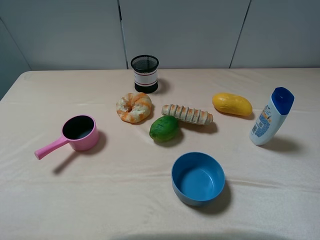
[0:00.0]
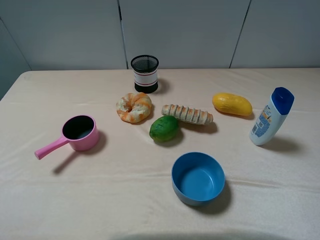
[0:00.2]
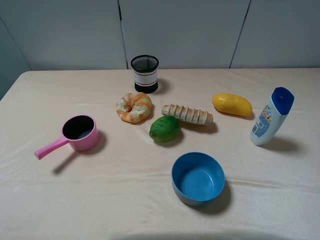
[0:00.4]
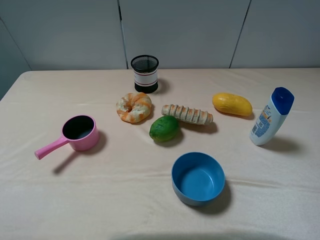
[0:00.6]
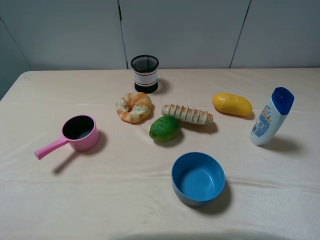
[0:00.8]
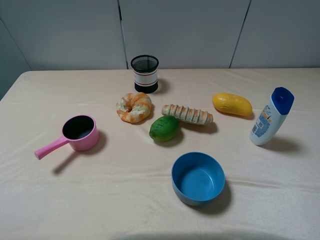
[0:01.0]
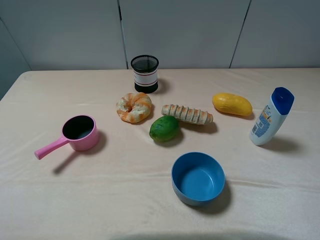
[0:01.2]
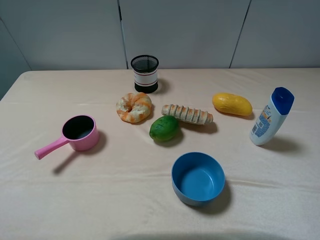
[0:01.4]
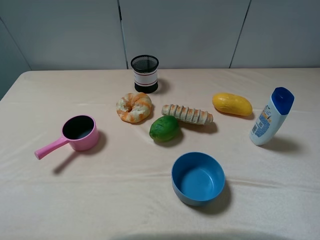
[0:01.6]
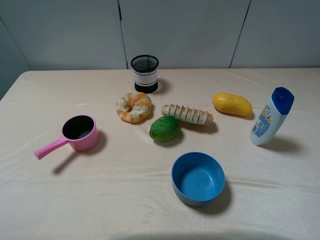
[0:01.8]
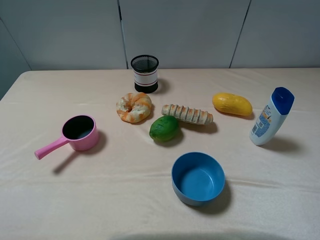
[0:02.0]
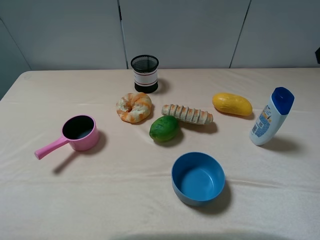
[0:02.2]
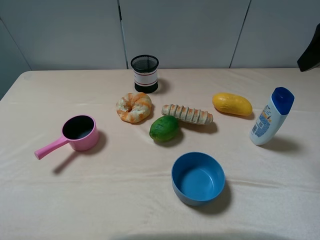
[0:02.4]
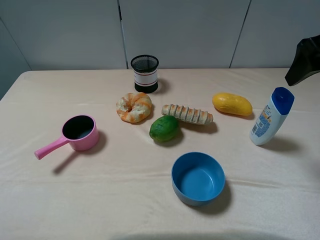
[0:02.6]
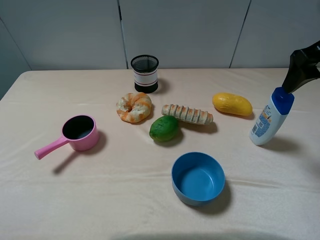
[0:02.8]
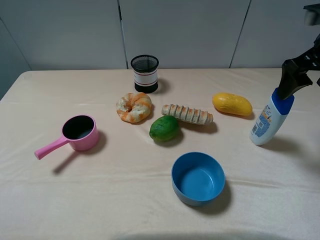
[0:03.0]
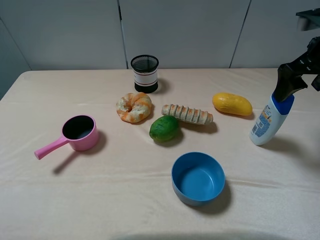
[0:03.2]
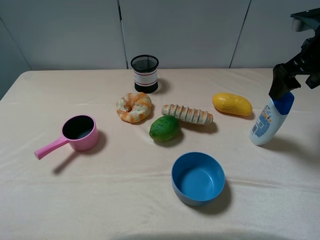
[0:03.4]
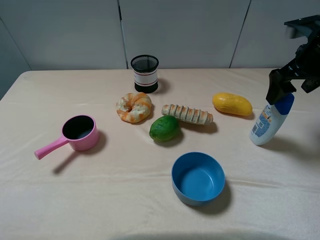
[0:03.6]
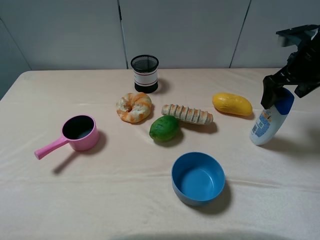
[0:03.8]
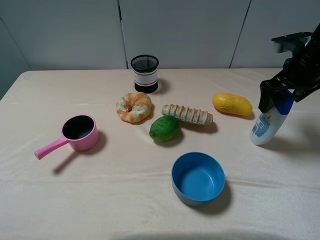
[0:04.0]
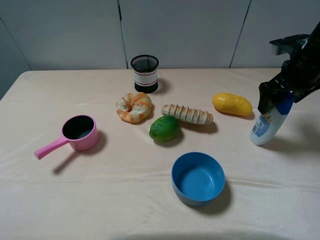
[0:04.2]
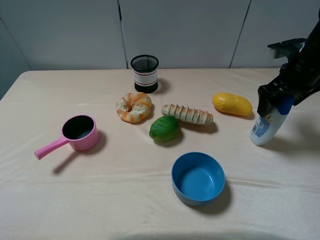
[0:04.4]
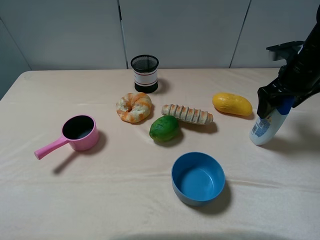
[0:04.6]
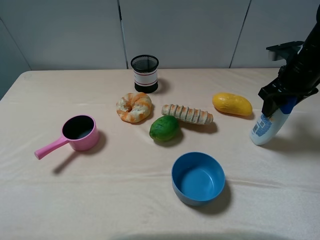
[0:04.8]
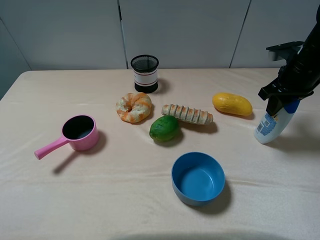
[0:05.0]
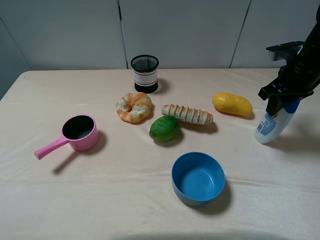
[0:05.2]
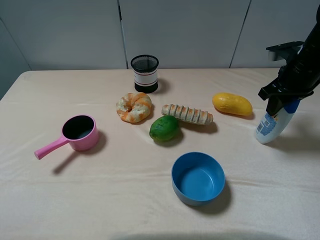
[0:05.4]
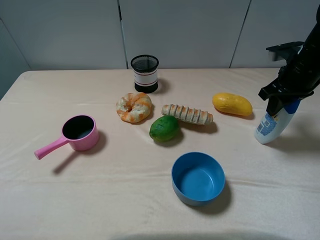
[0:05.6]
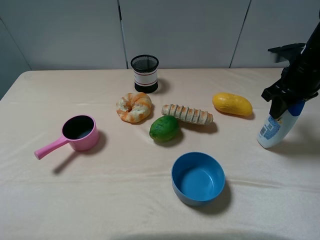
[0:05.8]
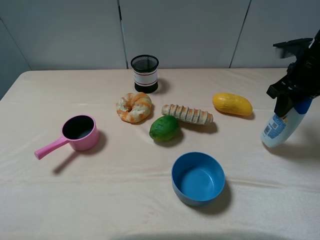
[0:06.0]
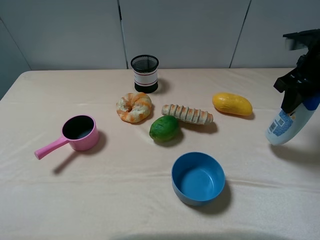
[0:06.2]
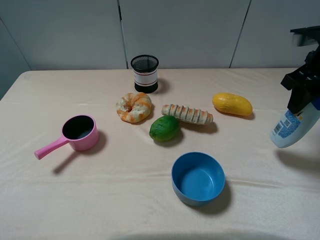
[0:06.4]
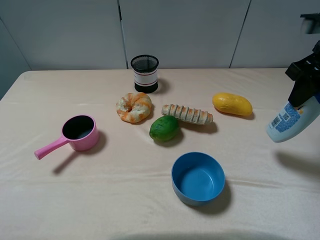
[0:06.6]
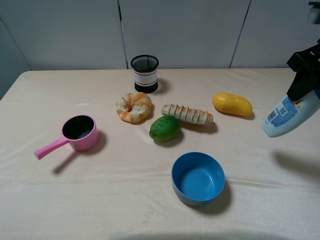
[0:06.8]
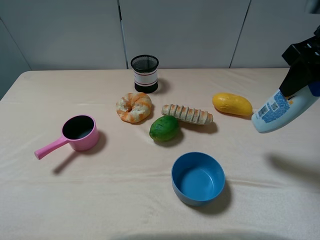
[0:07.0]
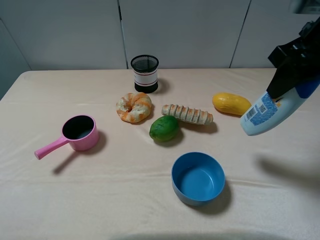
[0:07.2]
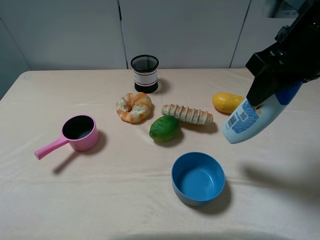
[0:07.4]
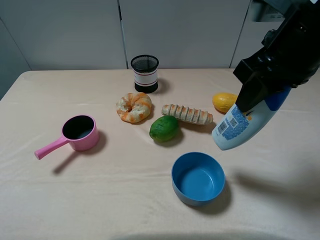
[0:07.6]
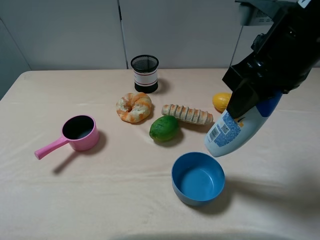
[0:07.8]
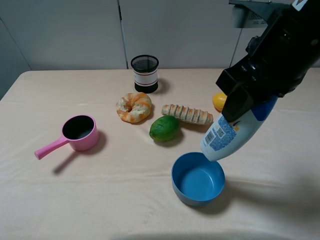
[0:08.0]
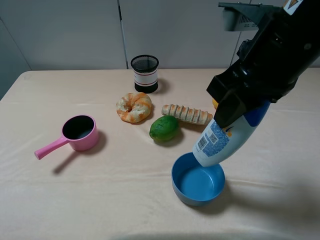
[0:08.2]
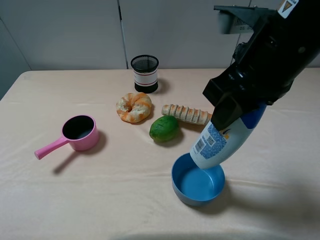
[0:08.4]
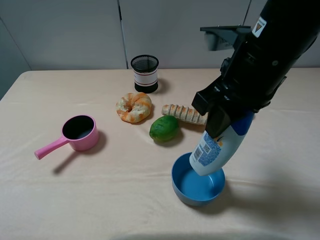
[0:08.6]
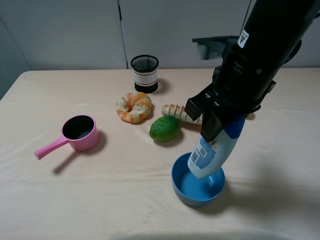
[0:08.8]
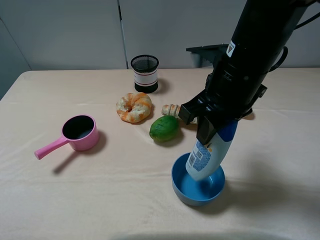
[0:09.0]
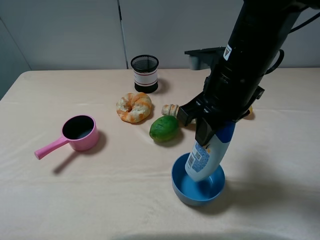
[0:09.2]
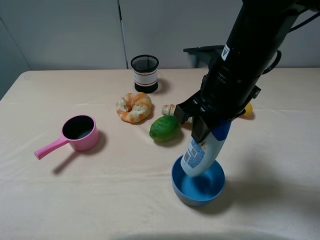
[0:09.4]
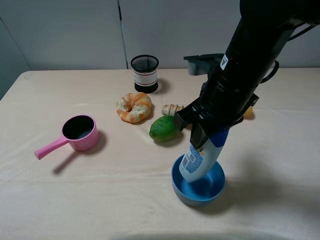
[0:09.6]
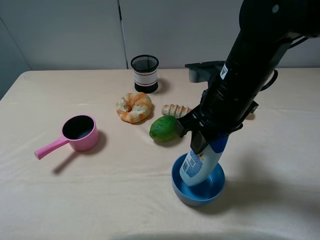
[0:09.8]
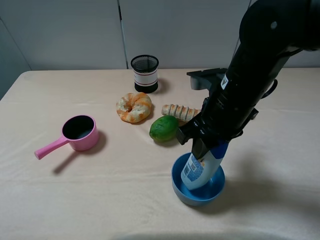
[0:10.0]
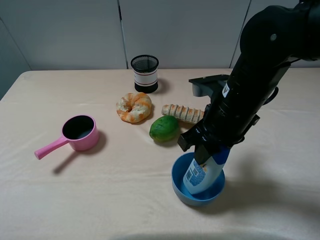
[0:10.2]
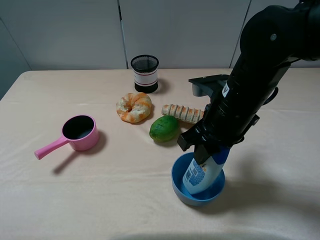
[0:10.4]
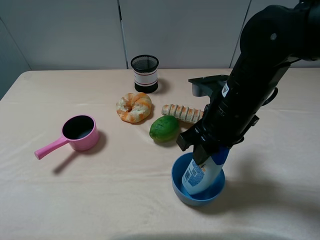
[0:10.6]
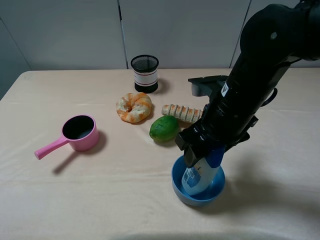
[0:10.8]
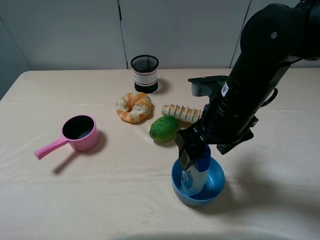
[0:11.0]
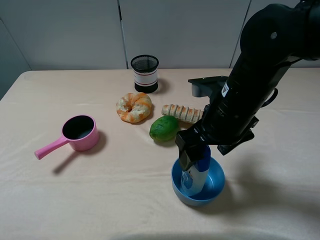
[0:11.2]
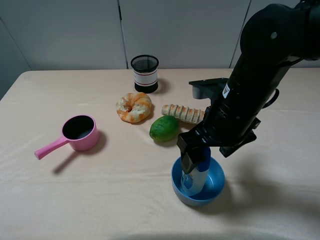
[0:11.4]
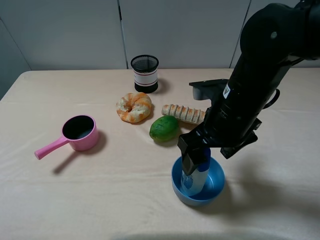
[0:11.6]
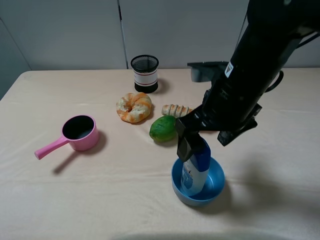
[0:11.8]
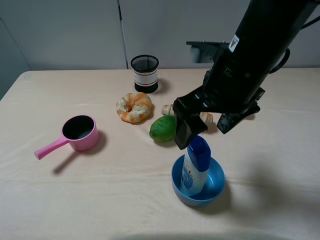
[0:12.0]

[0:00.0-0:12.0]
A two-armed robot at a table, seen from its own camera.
Task of the whole recording: pick up an item with a gripper and place it in a random container on the table.
Step, 0:00.0 to 0:04.8: Grasp the shampoo with the right gripper.
0:01.6 to 0:03.0: The right gripper moves forward and downward, some 20 cm.
0:03.0 to 0:04.4: The right gripper moves downward, about 10 cm.
0:04.4 to 0:06.0: The right gripper closes.
0:06.0 to 0:07.6: The right gripper goes about 20 cm to the left, backward and upward.
0:07.6 to 0:09.0: The right gripper shifts some 10 cm to the left and downward.
0:09.0 to 0:10.4: The right gripper travels downward by some 5 cm.
0:10.4 to 0:12.0: The right gripper moves upward, approximately 5 cm, and opens.

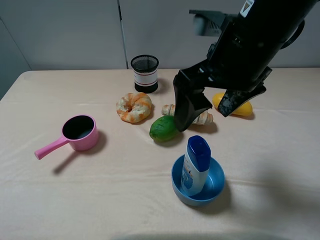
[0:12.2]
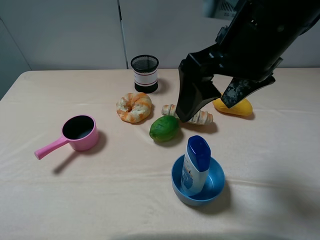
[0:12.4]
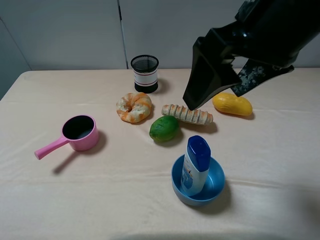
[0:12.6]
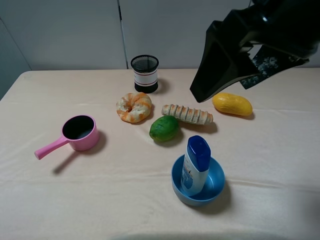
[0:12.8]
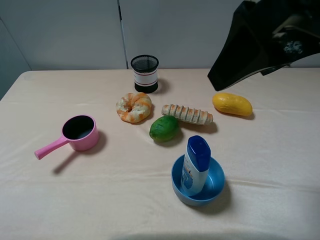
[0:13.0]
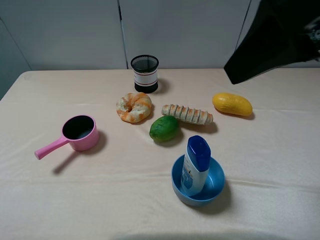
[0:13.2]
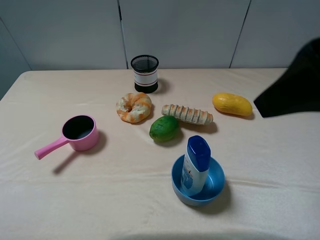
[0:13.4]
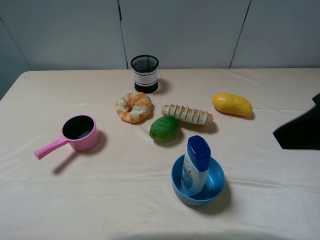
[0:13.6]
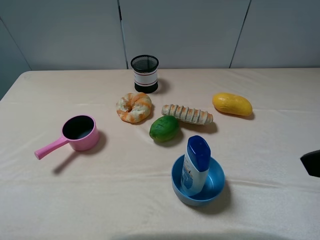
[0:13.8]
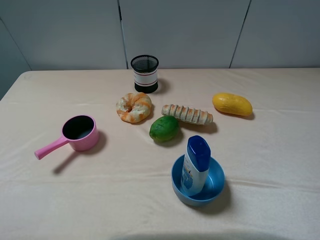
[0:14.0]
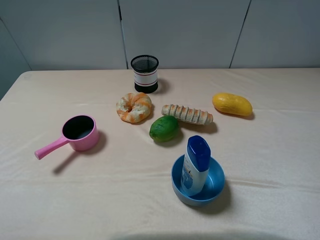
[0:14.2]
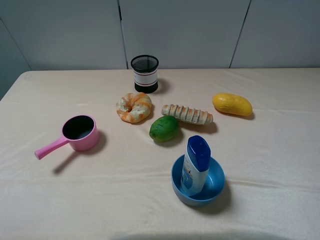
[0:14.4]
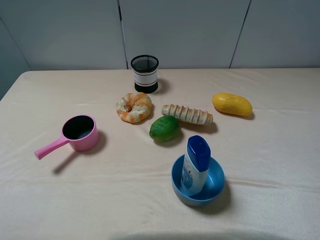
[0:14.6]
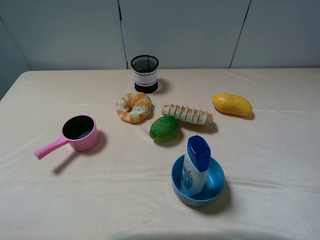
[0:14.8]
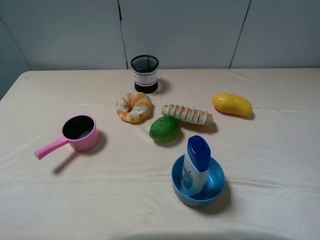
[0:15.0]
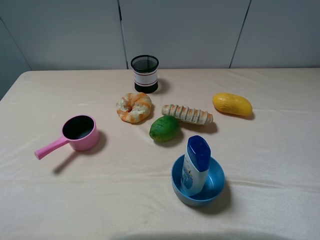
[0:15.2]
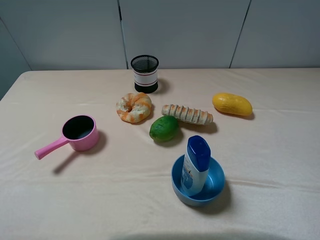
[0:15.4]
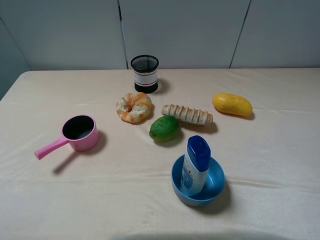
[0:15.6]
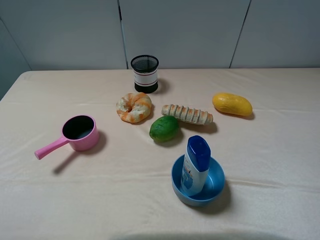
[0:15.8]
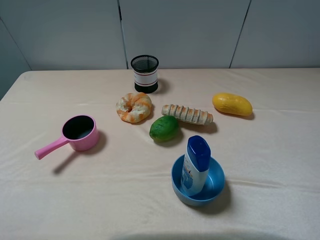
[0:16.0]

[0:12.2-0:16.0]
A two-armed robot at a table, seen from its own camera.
Task of the whole recording: pick up an item with a gripper and place it in a random container on the table.
0:12.2 to 0:13.4: The right gripper is displaced to the right, backward and upward by some 15 cm.
0:13.4 to 0:14.8: The right gripper heads backward, to the right and downward, covering approximately 20 cm.
0:14.8 to 0:16.0: The two grippers keep their place.
